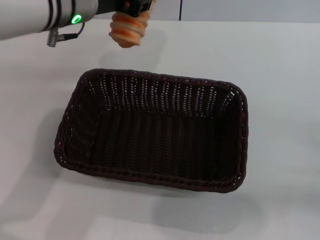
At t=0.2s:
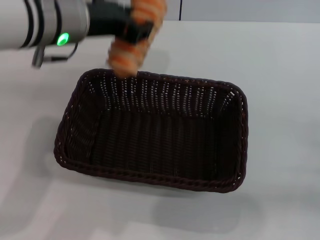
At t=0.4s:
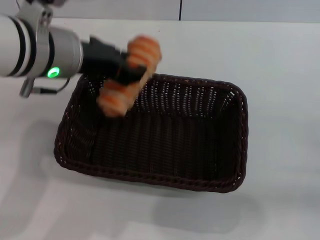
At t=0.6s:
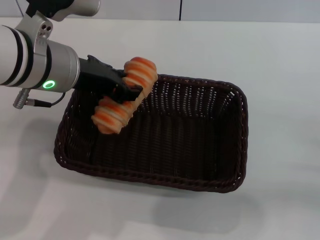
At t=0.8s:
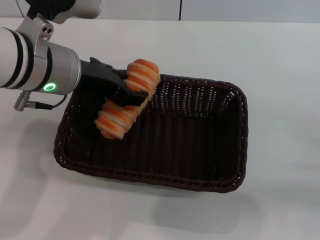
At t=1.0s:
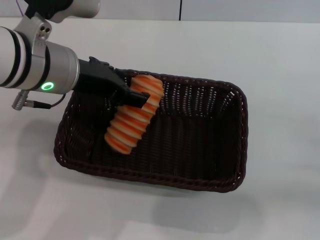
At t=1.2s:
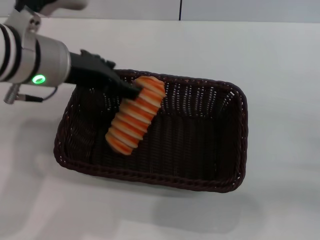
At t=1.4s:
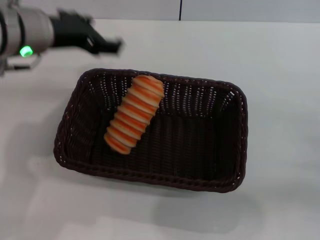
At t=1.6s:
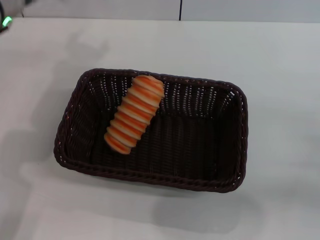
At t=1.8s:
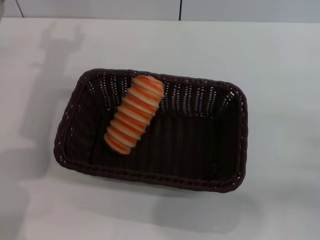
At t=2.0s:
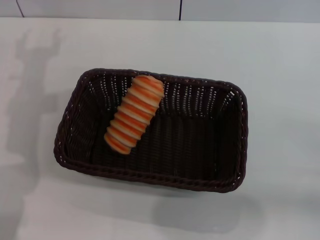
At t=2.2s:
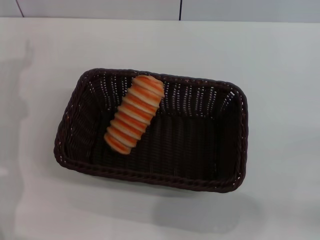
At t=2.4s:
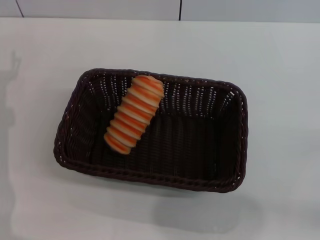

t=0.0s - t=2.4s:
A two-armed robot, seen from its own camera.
Step, t=0.0s - t=1.2s: Place the long bread into the dark basket with the left gripper.
t=0.0s - t=1.2s: The left gripper moves about 5 cm, and opens up.
t=1.2s - t=2.4s: The left gripper goes approximately 20 cm downward and to the left.

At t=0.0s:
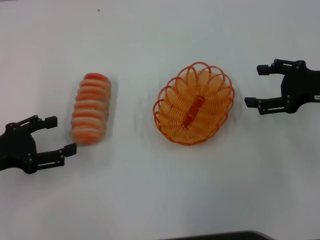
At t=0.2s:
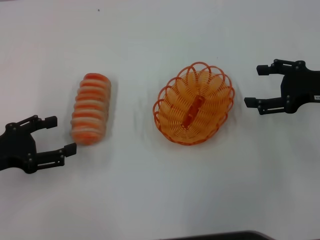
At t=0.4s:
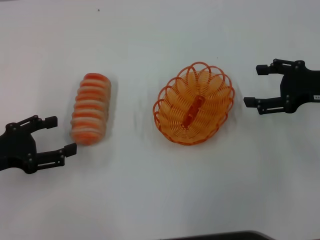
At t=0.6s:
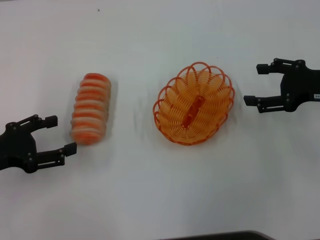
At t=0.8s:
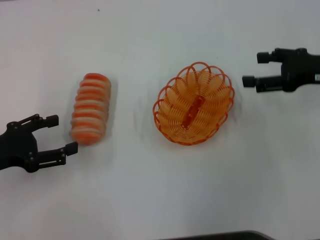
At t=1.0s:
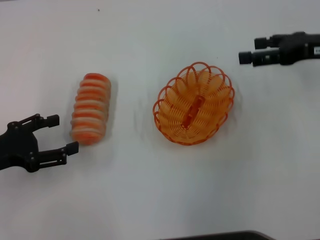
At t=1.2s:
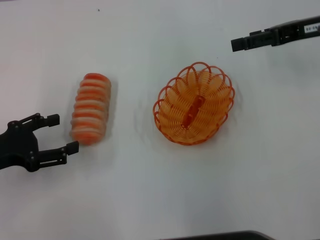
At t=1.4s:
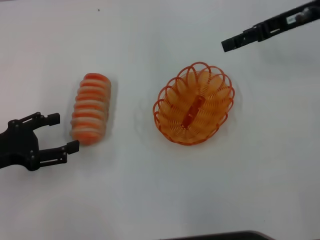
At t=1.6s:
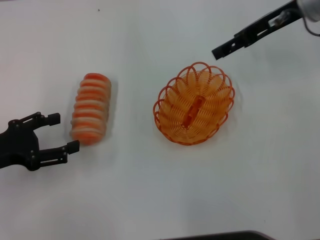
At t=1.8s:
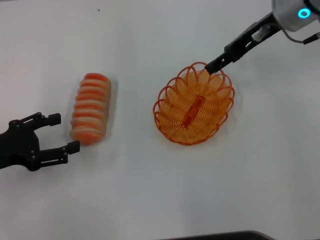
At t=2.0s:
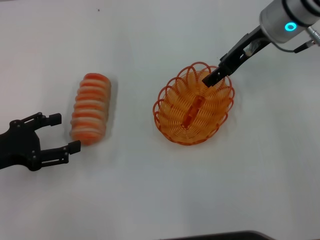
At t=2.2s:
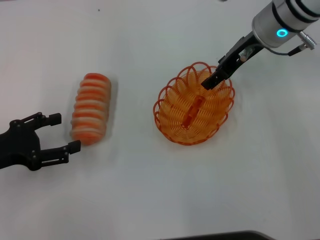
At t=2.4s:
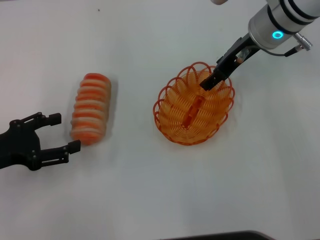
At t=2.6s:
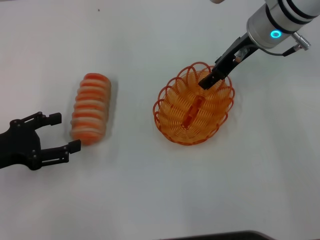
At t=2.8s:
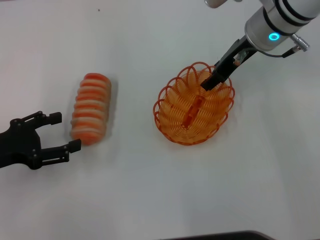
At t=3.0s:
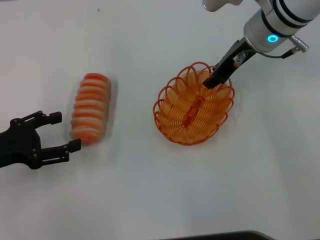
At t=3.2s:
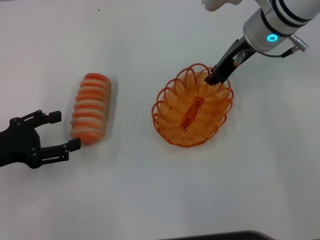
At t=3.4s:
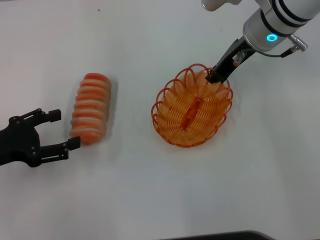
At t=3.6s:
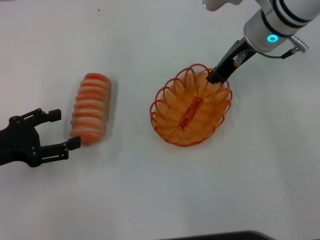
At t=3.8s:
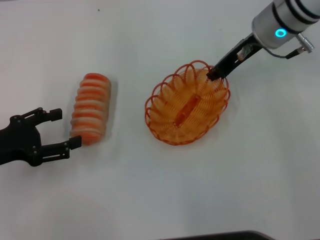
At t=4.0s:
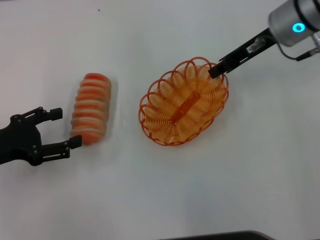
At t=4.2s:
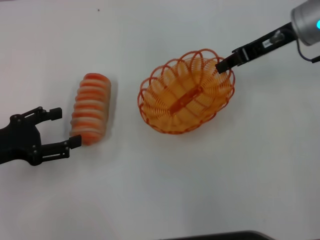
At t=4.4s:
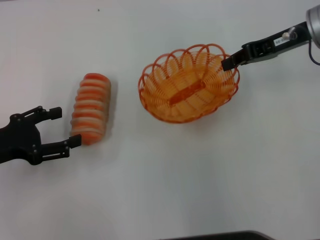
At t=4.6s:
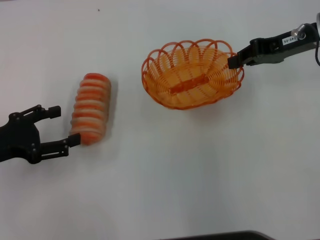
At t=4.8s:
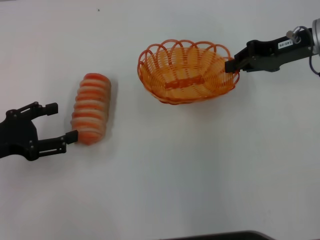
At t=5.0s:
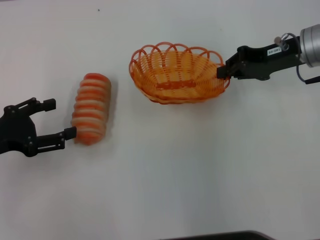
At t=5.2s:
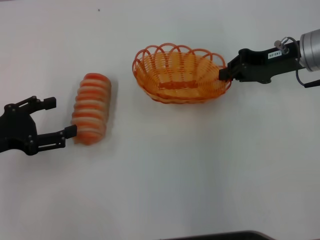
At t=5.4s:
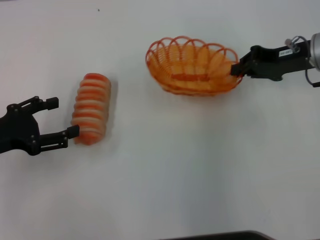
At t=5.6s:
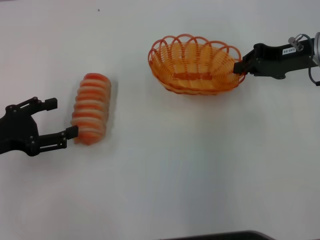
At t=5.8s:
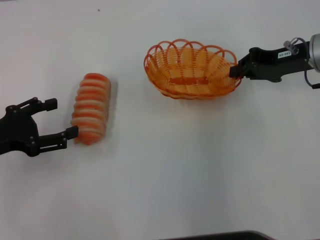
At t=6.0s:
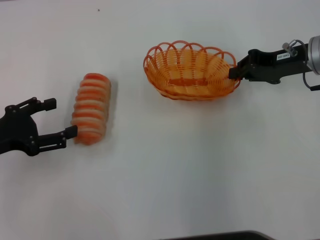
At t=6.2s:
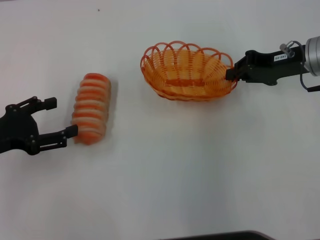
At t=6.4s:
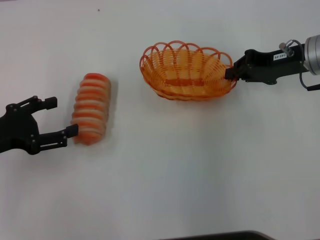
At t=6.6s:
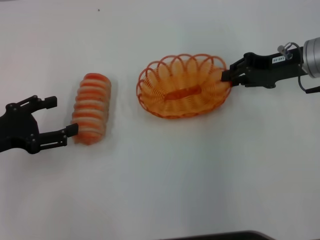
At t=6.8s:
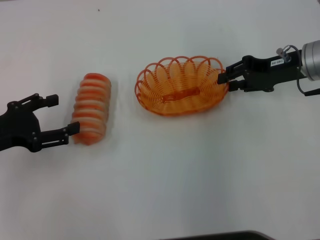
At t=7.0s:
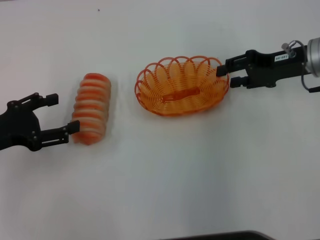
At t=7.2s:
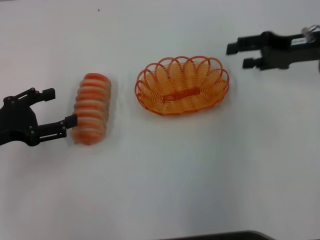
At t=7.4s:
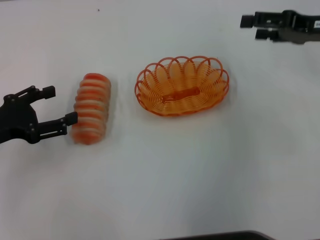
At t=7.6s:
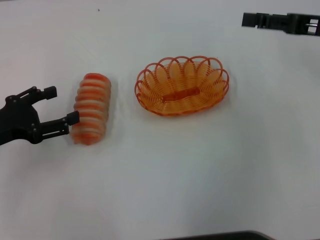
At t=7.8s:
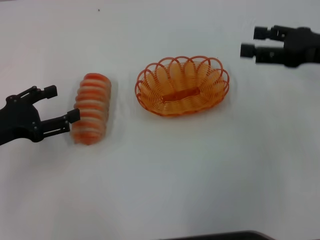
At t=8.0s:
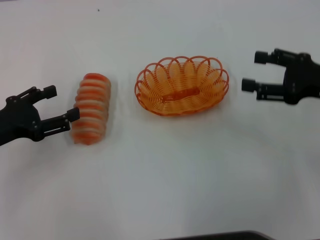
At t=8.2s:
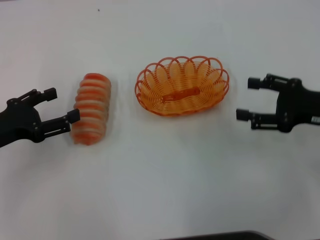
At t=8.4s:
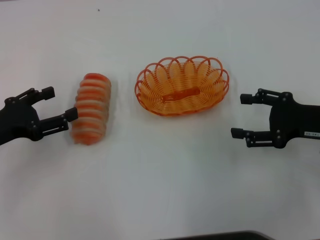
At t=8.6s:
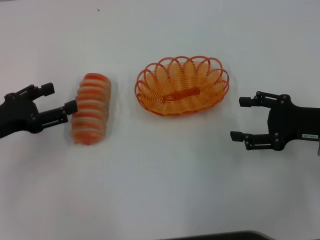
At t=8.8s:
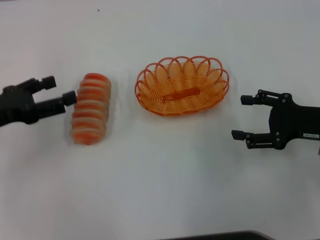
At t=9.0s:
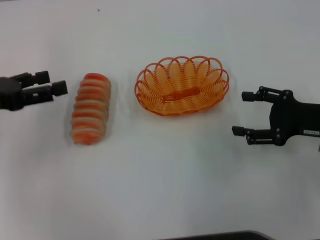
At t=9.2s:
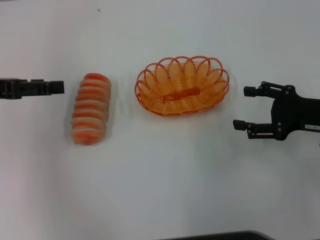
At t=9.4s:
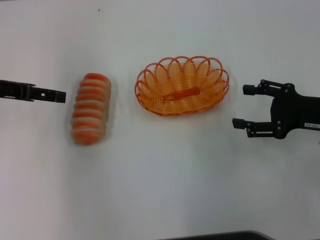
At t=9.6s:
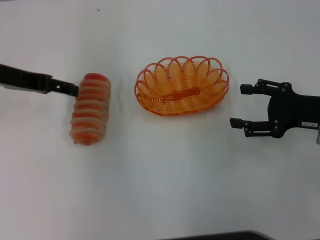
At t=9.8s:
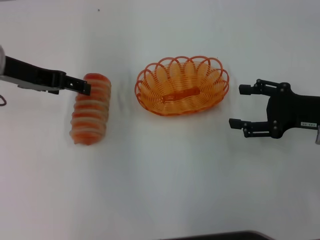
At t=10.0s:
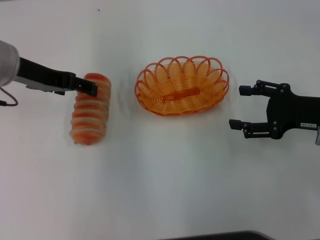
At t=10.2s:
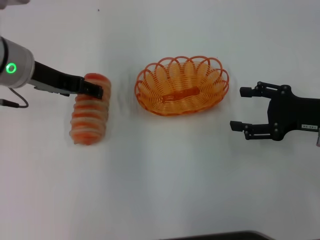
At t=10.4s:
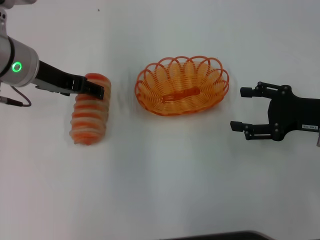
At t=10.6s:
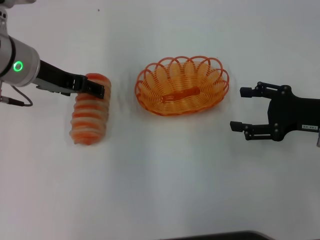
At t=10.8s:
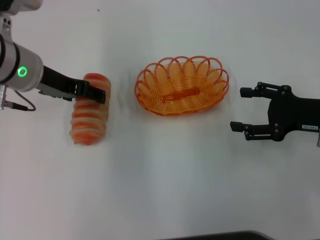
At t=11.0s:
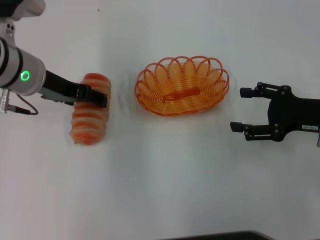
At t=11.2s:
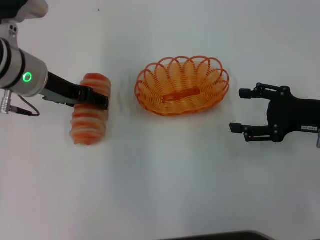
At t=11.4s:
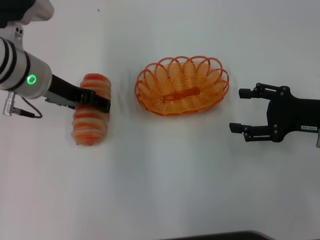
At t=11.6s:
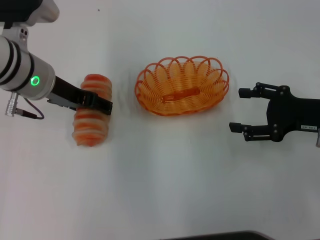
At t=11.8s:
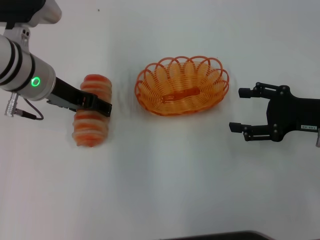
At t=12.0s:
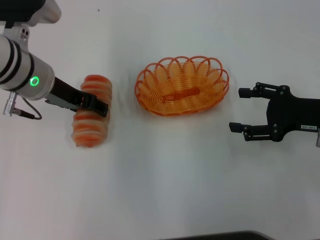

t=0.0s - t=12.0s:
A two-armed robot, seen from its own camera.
Step, t=0.0s - t=3.8s: Pick up the basket with the right gripper.
Step, t=4.2s - t=8.0s: Place the basket in the center of view with the right gripper.
t=0.0s - t=1.6s: The right gripper heads forward, upward and to the left, covering some 15 cm.
t=1.6s - t=3.0s: The right gripper heads to the left, covering about 5 cm.
t=3.0s - t=4.4s: The right gripper goes approximately 10 cm to the right, and closes.
t=6.0s - t=7.6s: The right gripper ends up about 5 cm from where it was, and opens up.
t=7.6s - t=9.0s: The right gripper shifts roughly 10 cm downward and backward, while the left gripper travels upward by roughly 5 cm.
t=9.0s - t=10.4s: The left gripper goes some 15 cm to the right and forward.
t=10.4s - t=12.0s: The grippers move only a little.

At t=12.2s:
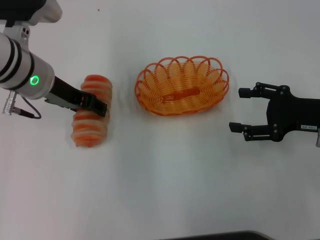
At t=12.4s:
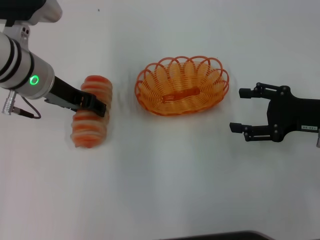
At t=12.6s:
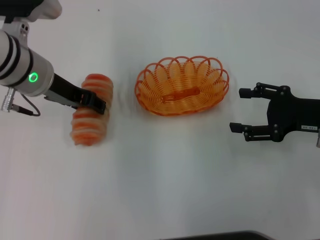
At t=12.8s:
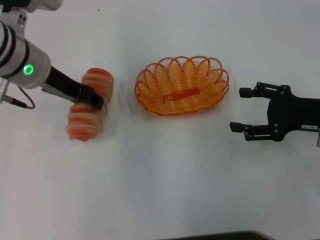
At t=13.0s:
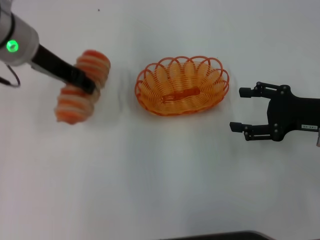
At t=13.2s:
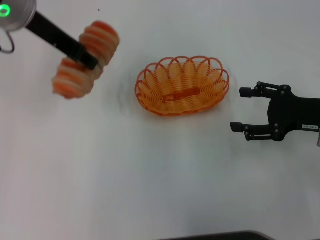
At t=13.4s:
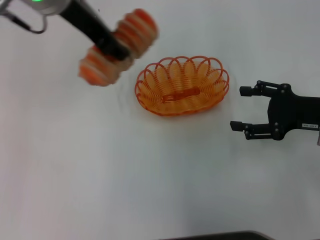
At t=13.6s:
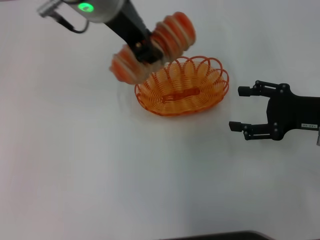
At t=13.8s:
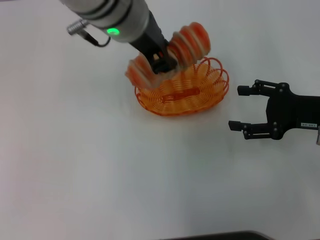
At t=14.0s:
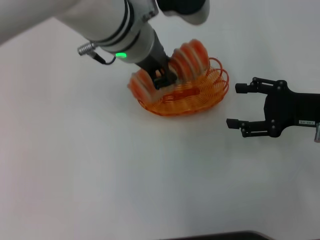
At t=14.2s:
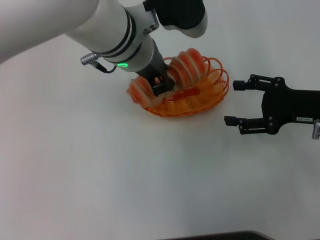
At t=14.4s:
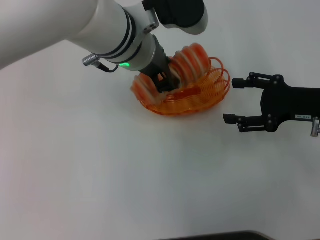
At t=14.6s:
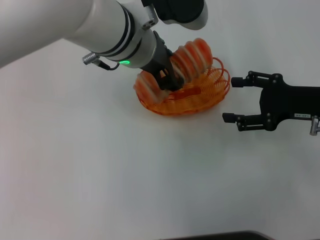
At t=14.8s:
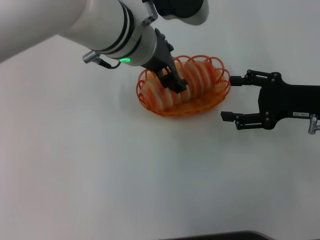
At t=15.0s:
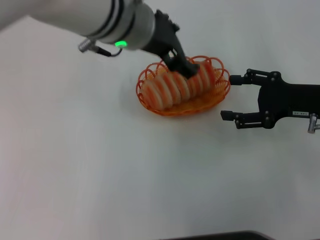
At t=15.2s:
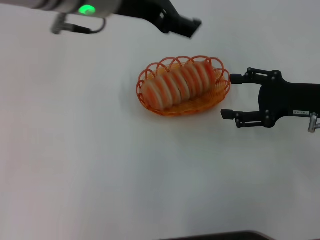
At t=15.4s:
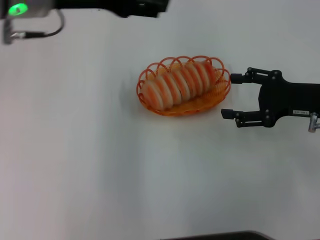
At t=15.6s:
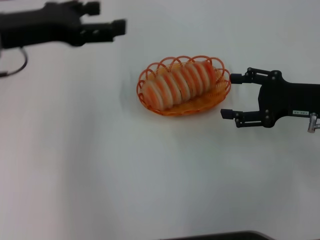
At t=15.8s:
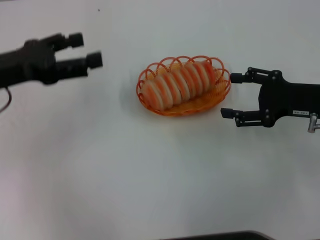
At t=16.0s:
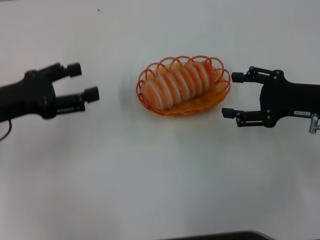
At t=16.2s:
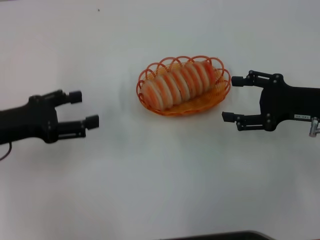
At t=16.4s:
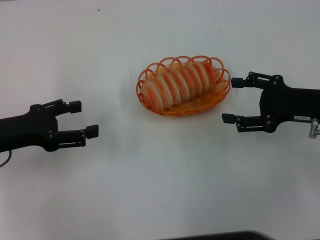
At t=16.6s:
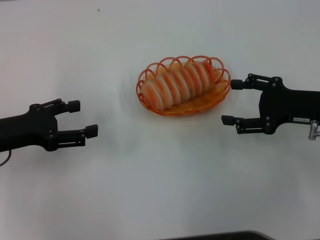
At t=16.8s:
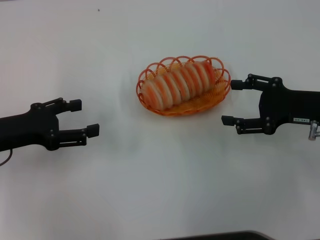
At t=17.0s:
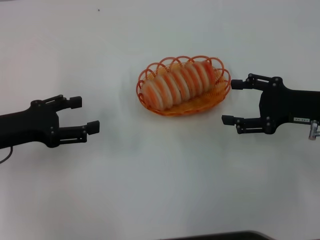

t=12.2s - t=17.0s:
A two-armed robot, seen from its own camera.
Step, t=13.4s - t=14.8s: Place the long bread into the basket with the left gripper.
t=12.2s - t=13.8s: The left gripper shifts some 15 cm to the right and upward, and closes.
t=13.8s - t=15.4s: The left gripper shifts approximately 10 cm to the left, and opens its fingers.
t=15.4s - t=17.0s: The left gripper goes roughly 20 cm downward, to the left and backward.
